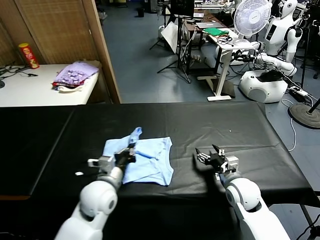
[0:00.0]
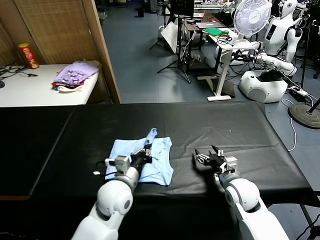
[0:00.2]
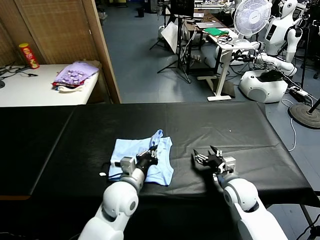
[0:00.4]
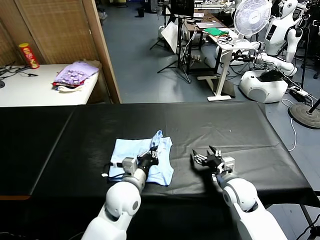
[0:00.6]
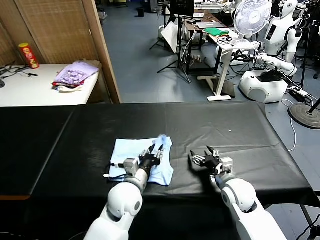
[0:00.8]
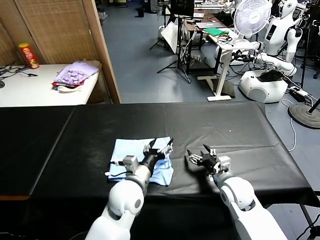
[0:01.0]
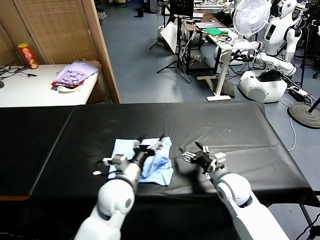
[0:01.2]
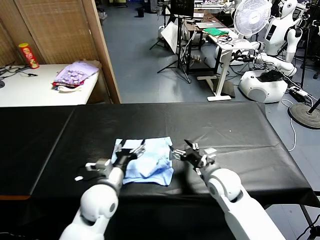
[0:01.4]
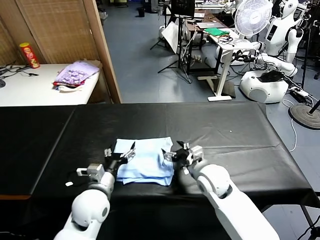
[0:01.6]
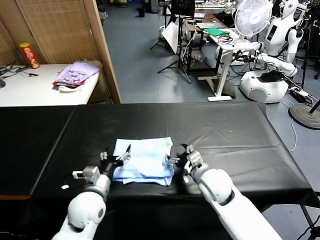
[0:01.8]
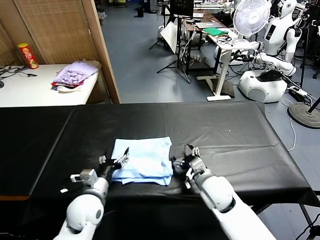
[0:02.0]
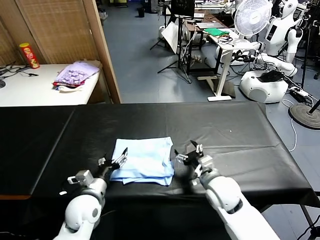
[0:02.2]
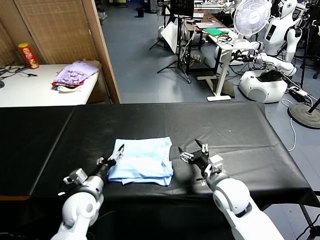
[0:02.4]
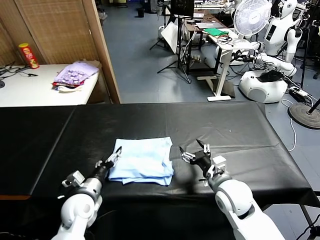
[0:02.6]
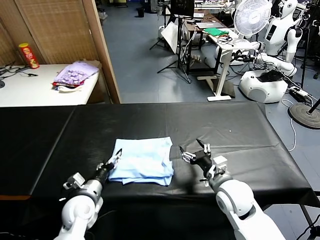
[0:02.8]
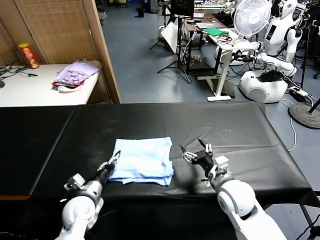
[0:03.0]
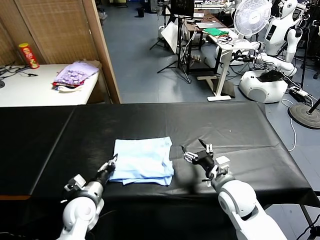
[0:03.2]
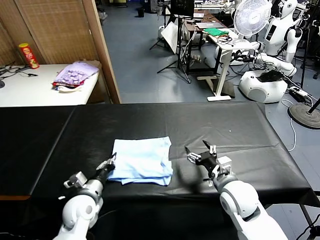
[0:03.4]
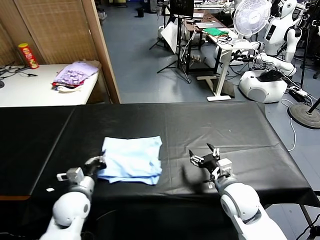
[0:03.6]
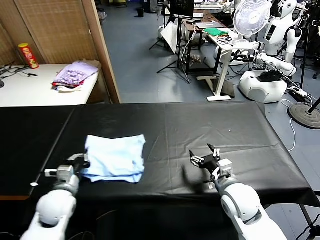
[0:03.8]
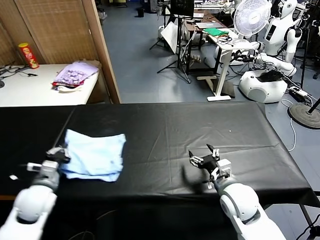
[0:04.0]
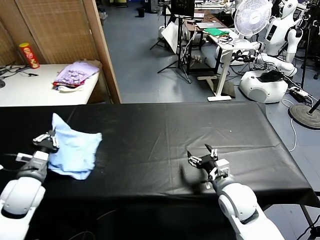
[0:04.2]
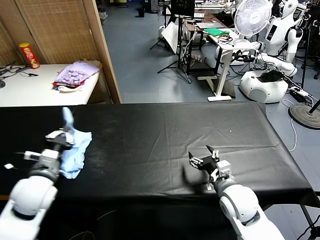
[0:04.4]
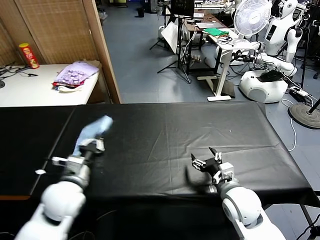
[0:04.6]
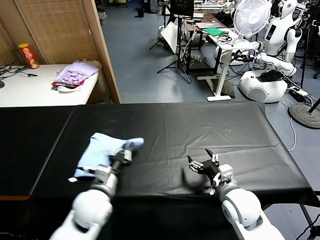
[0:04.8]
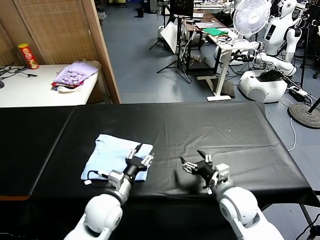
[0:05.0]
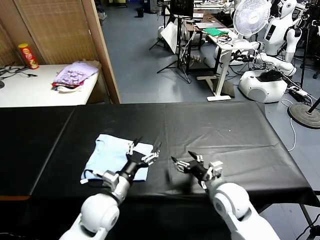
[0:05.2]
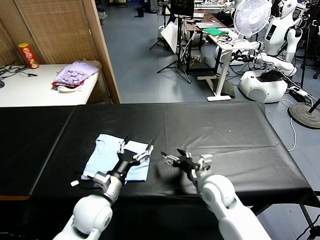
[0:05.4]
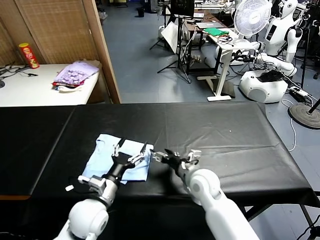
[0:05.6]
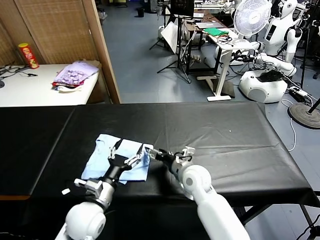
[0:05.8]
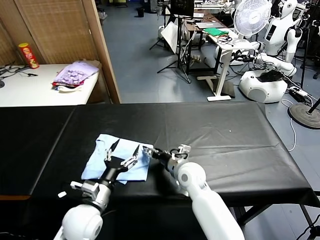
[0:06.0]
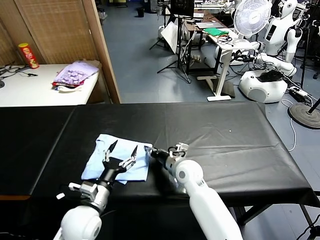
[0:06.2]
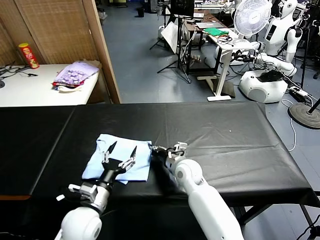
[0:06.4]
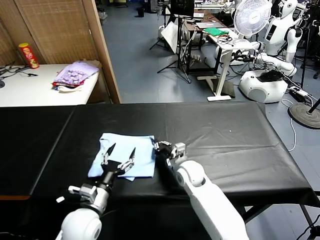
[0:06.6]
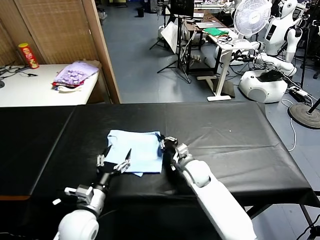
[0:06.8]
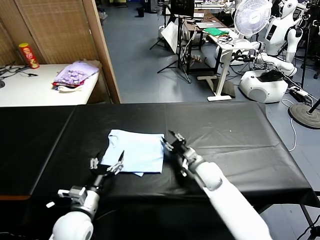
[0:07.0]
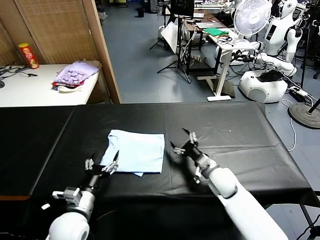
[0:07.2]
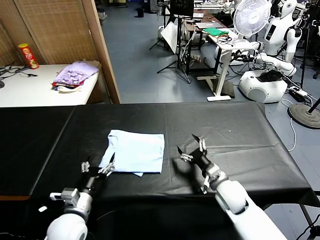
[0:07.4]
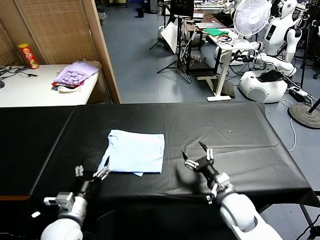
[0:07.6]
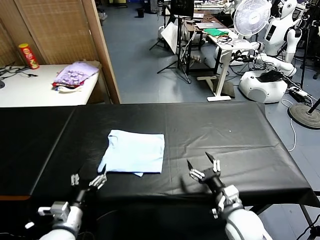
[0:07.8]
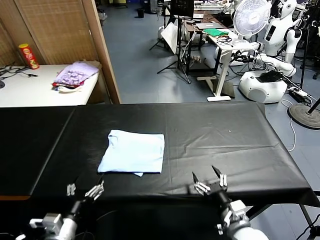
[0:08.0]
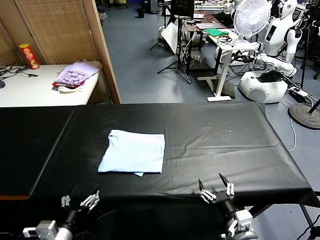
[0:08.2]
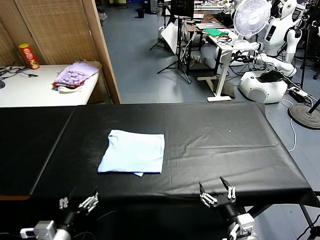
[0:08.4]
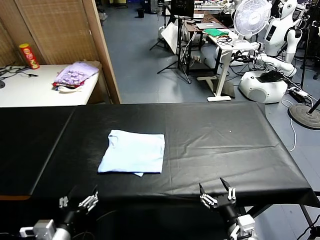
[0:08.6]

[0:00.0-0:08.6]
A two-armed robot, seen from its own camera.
Task of the whole recording: fold and organize the clothes.
Step, 0:01.0 to 0:04.8: Flip the folded clothes over with left gripper.
Step, 0:05.2 to 0:07.0: Drag the clothes to the center of the table.
0:00.0 to 0:01.4: The left gripper goes to the right and returns, roughly 10 cm each way, and opens up, while the right gripper shifts about 5 cm to the left.
0:01.4 to 0:02.8: The left gripper goes some 10 cm to the left and downward. The right gripper shifts by about 5 cm.
0:02.8 to 0:04.4: The left gripper is displaced upward and to the left by approximately 15 cm, and closes.
0:04.4 to 0:05.8: The right gripper moves to the left and forward, some 15 cm, while the left gripper goes approximately 15 cm to the right and downward, and opens up.
0:05.8 to 0:07.2: The right gripper shifts some 10 cm to the right, and closes, then reopens. The left gripper is displaced to the left by about 5 cm.
0:07.2 to 0:08.6: The right gripper heads backward, covering some 25 cm; the left gripper moves backward, some 10 cm.
